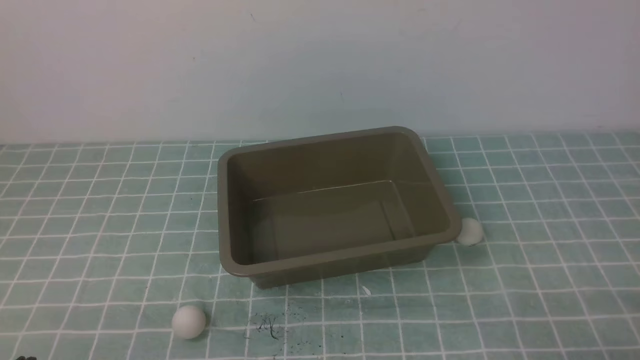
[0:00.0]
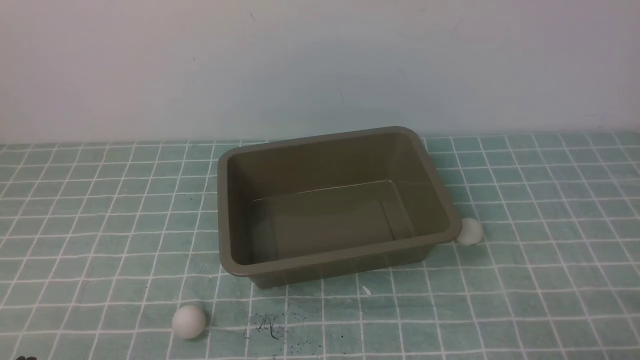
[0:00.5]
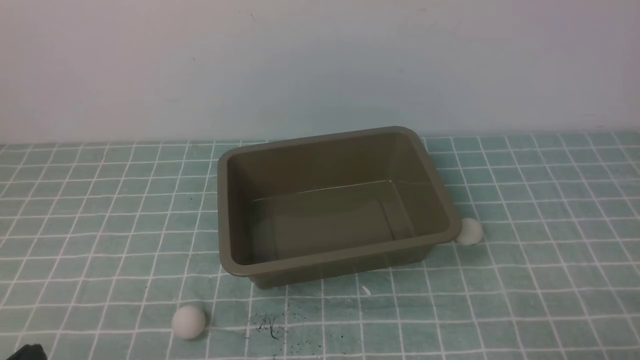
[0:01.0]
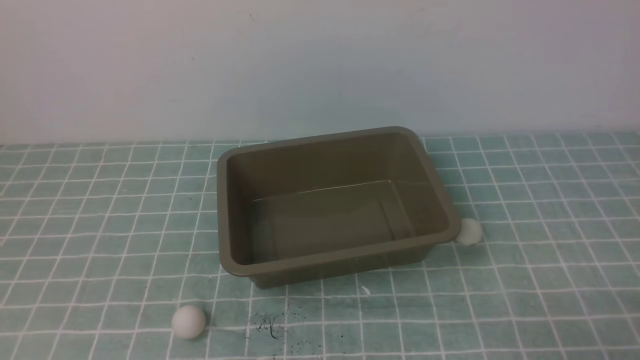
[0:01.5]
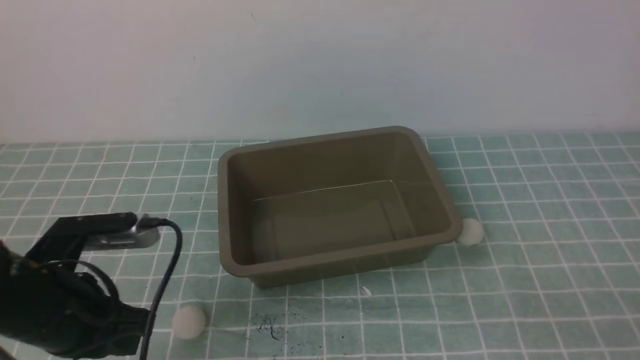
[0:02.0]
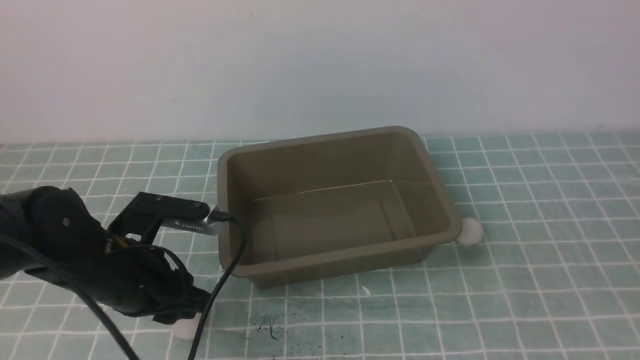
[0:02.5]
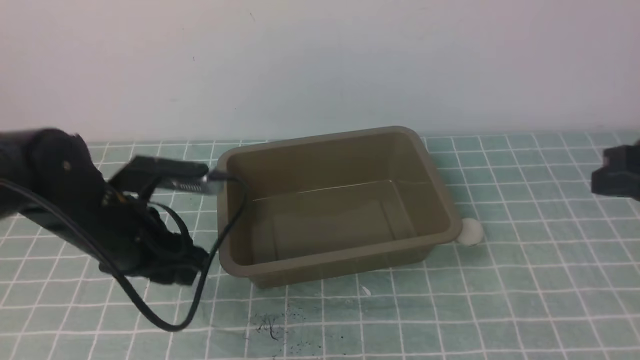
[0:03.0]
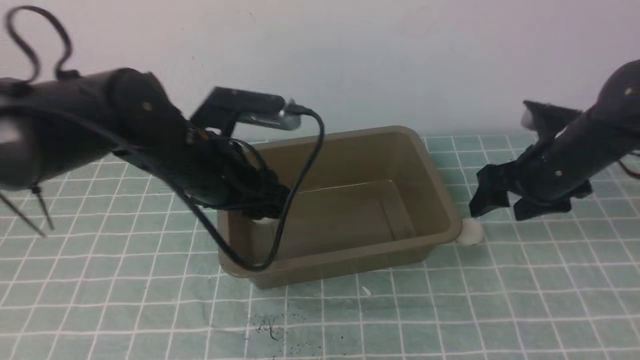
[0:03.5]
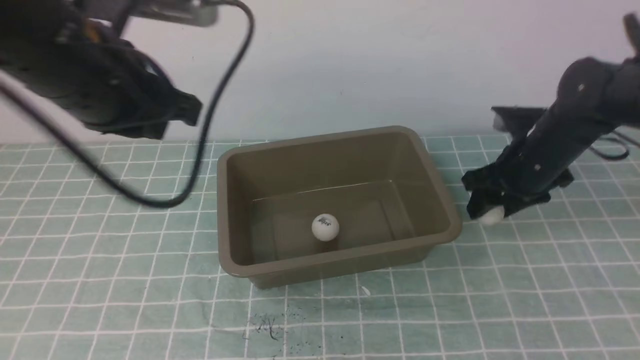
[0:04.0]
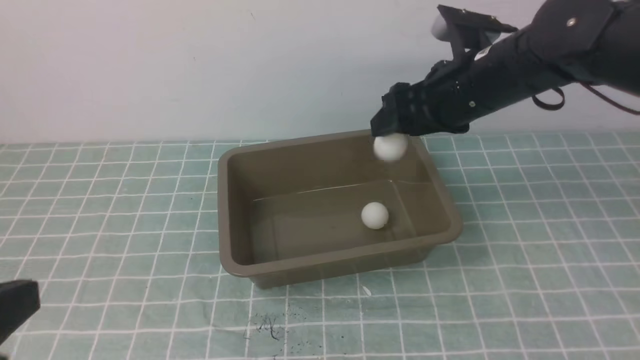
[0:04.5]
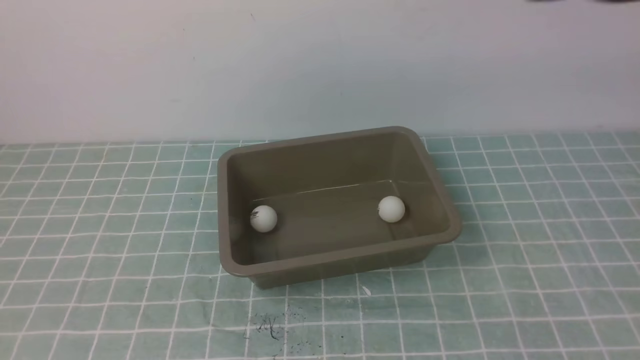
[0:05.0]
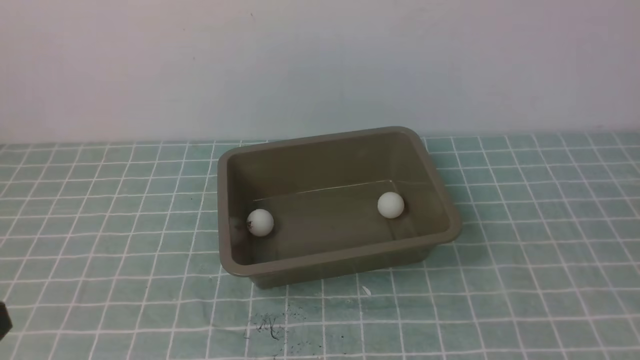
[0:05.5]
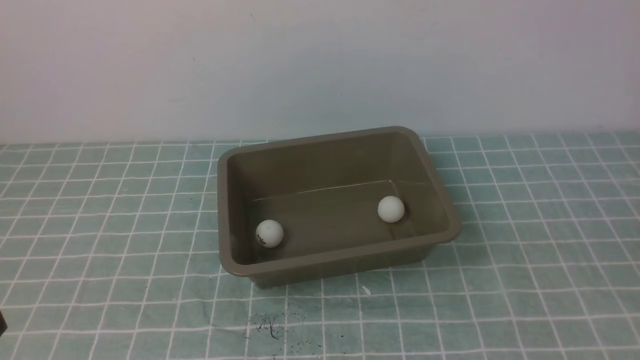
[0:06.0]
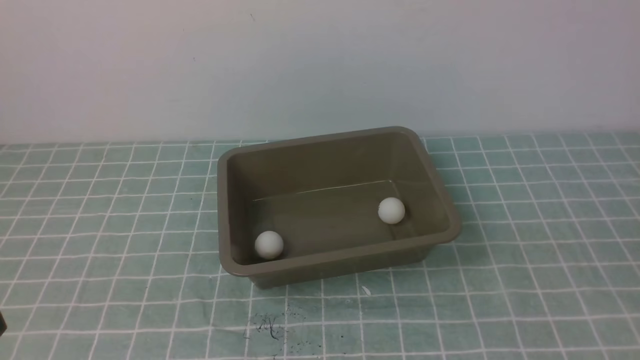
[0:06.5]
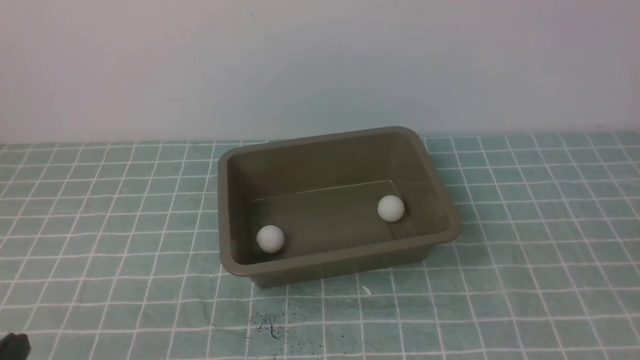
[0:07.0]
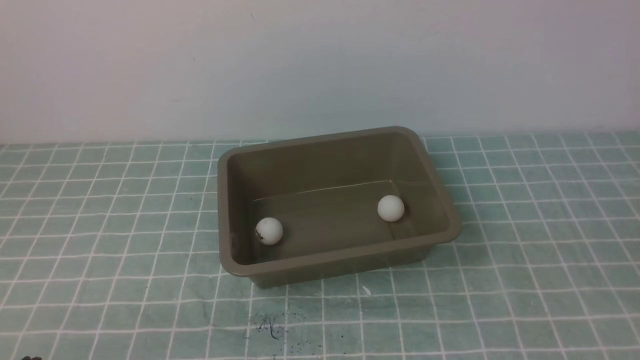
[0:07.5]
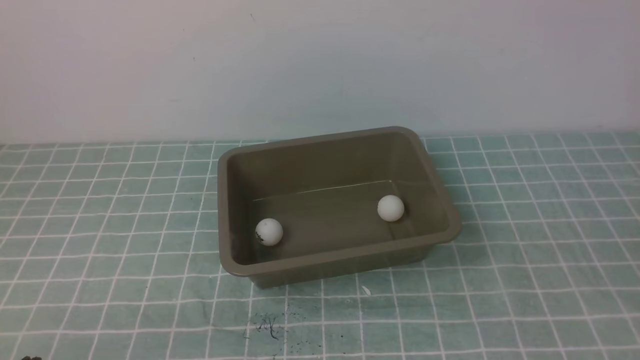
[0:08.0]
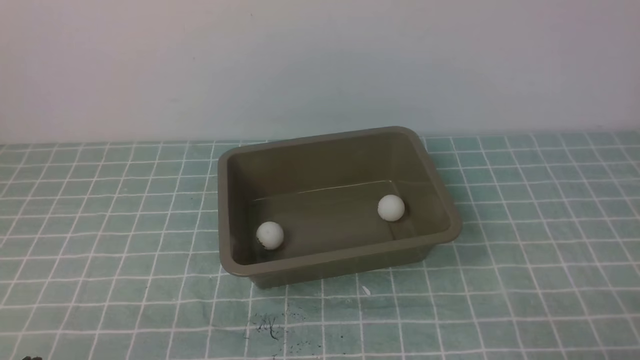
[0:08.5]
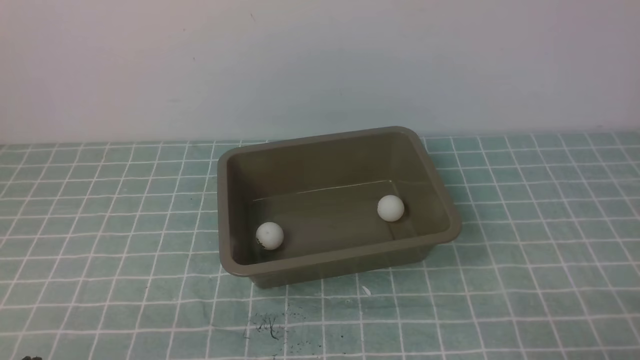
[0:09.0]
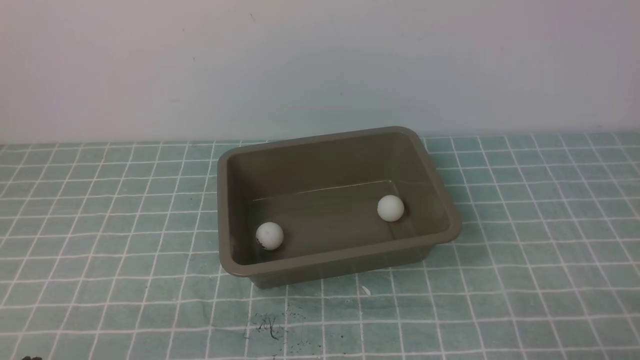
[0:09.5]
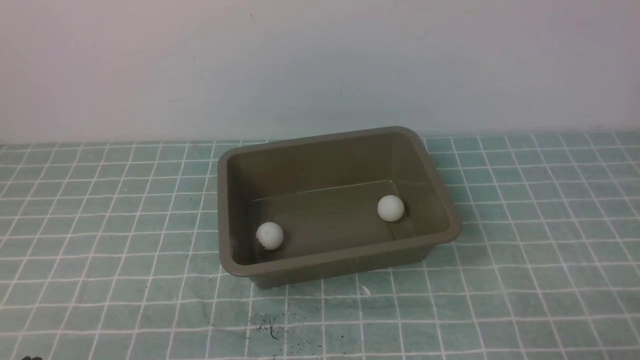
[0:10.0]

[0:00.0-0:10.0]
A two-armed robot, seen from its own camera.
Step, 0:00.0 to 0:03.0: use the left arm to clamp the table tennis ball closest to it.
0:00.0 to 0:02.0: The left gripper is displaced forward by approximately 15 cm.
0:02.0 to 0:04.0: The left gripper is displaced upward and forward by some 15 cm, and opens and closes again; the right gripper travels forward by roughly 35 cm, and opens up.
0:04.0 to 0:06.0: The left gripper heads backward, covering some 25 cm, while the right gripper goes approximately 40 cm backward, and closes up.

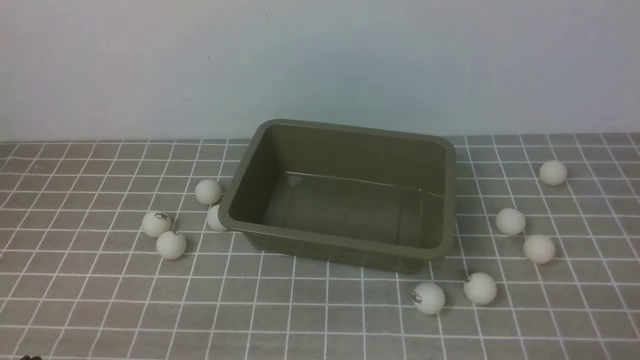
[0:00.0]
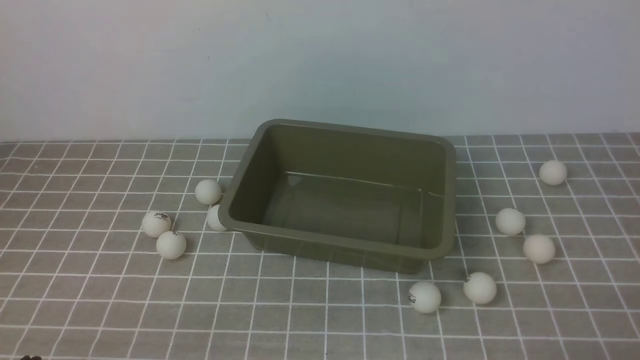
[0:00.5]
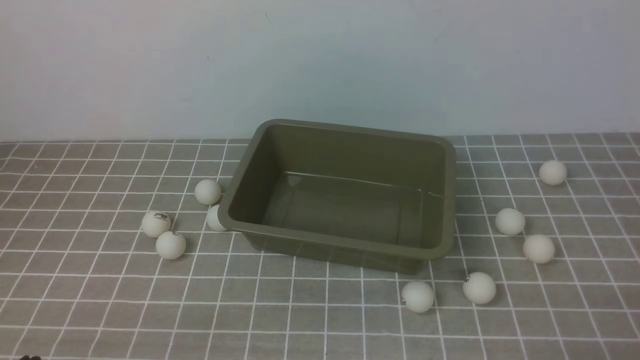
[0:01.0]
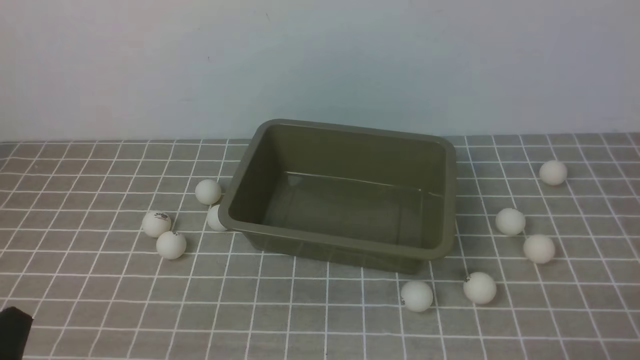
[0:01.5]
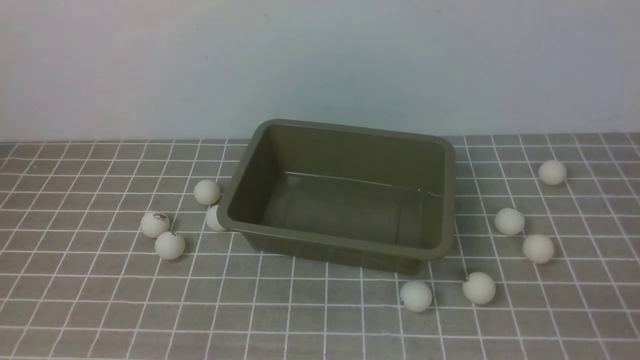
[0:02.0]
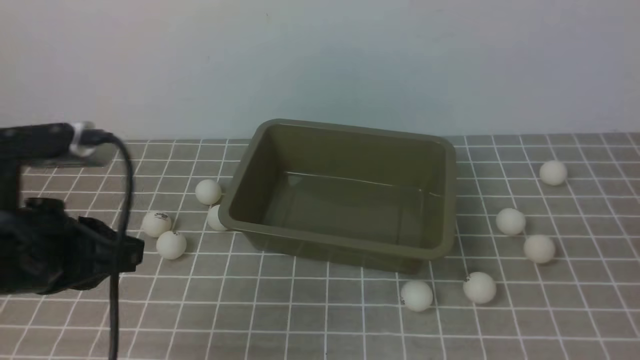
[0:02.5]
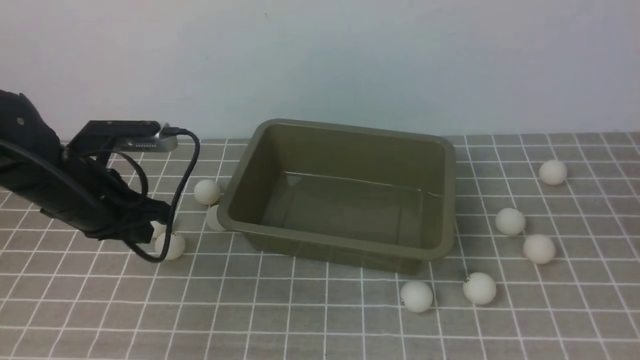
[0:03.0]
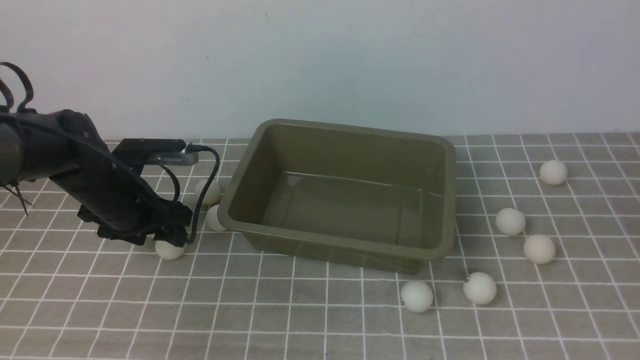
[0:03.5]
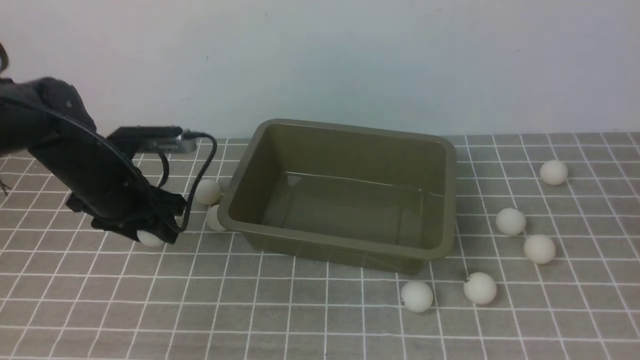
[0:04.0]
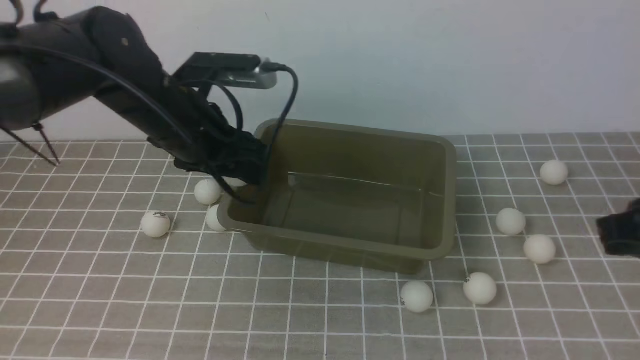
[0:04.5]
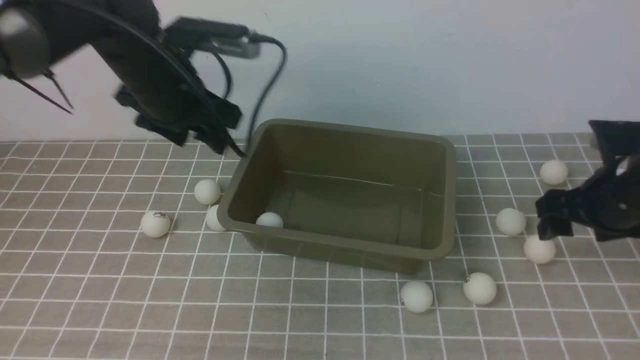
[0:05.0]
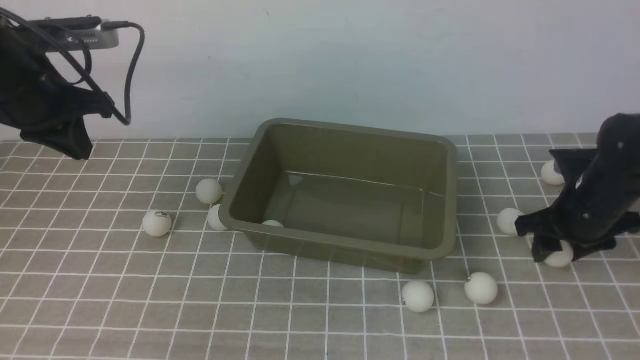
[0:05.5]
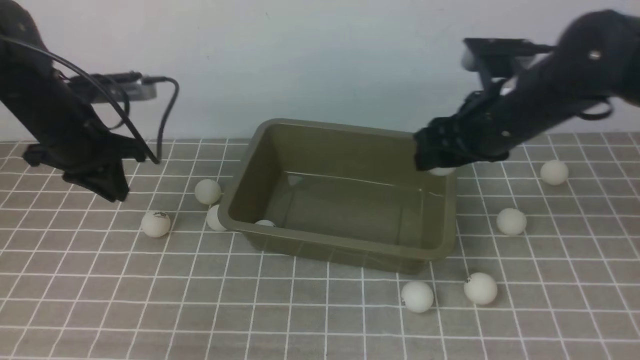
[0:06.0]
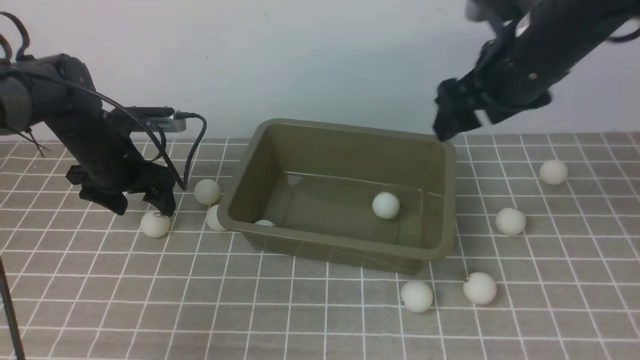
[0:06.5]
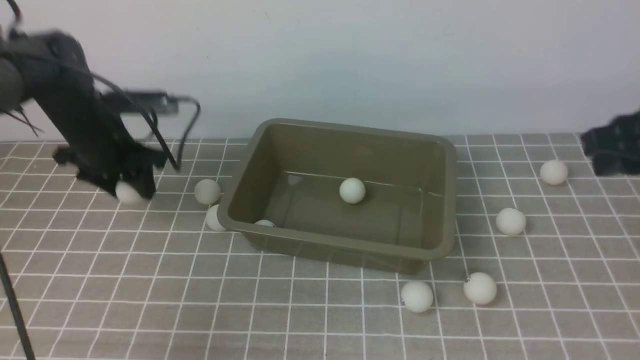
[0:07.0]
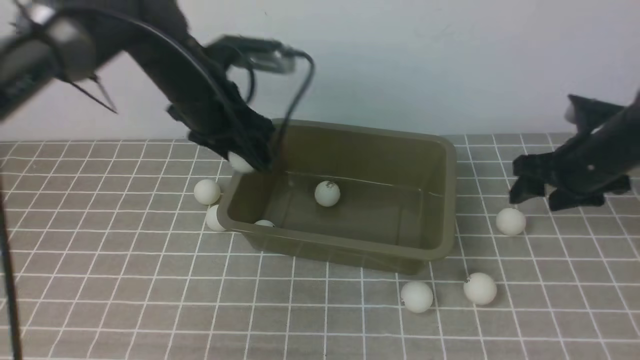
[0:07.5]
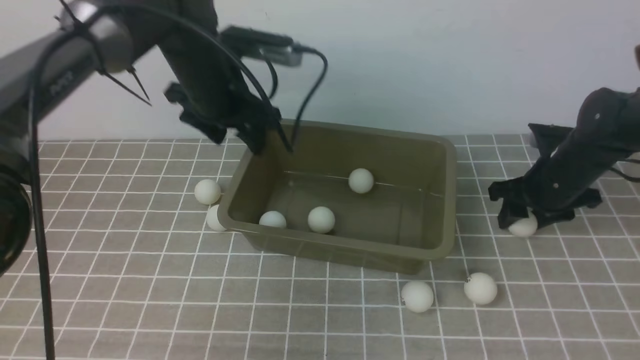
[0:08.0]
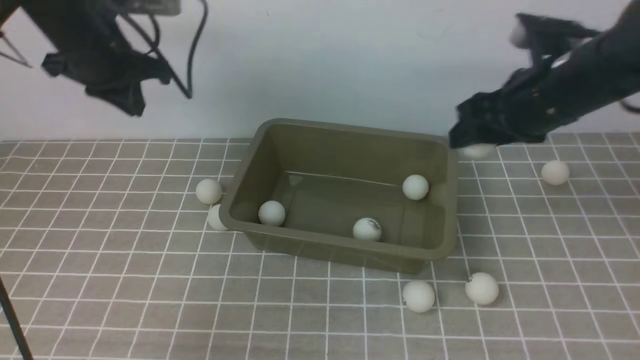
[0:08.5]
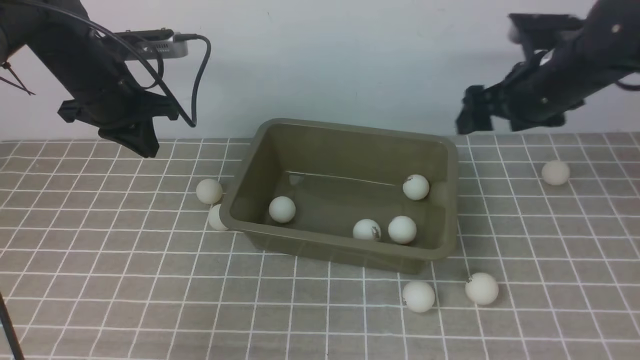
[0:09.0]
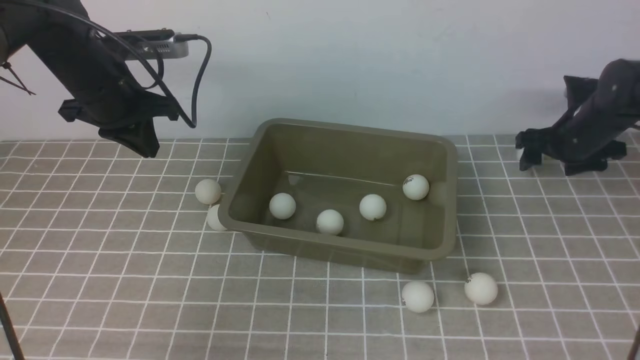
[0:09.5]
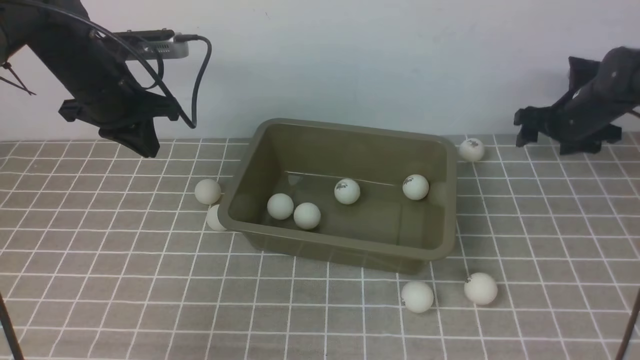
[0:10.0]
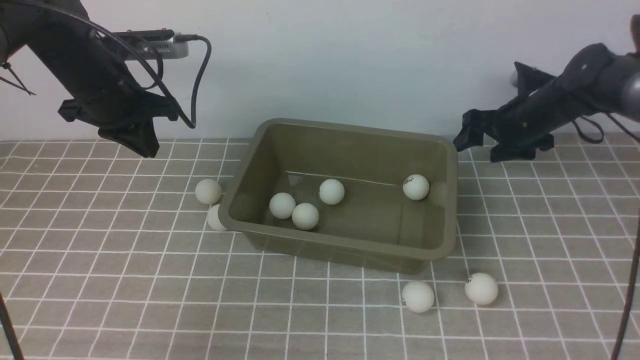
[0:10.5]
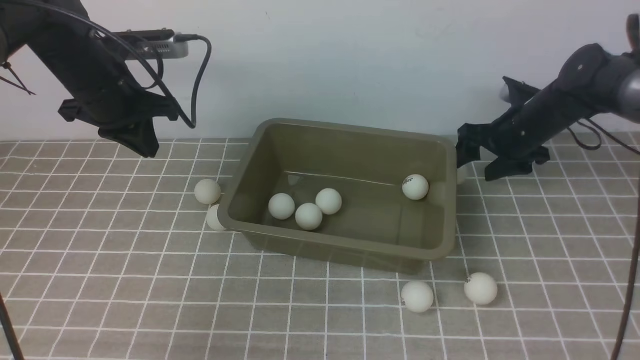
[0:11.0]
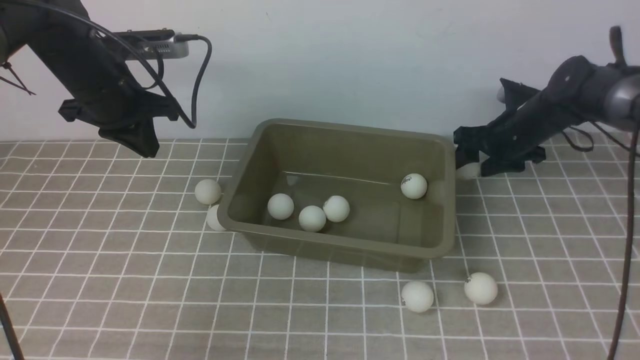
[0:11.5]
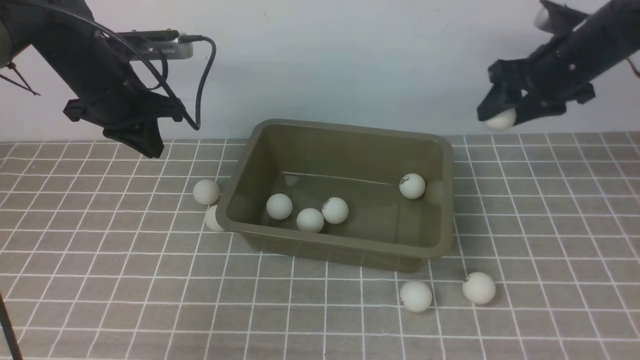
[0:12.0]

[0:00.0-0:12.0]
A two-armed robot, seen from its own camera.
Step, 0:00.0 to 0:04.0: use the left arm to clamp the table tennis ball closest to it.
Step, 0:05.0 to 0:05.5: use the right arm to clamp the table tennis ball closest to it.
Step, 0:09.0 to 0:11.5: use the right arm to clamp the table tennis ball closest to it.
0:02.0 to 0:04.0: The right gripper moves upward, about 15 cm. The left gripper moves forward, approximately 30 cm, and opens.
0:04.0 to 0:06.0: The right gripper shifts approximately 25 cm forward and to the left, and opens, while the left gripper travels to the right and back again, about 10 cm each way, and closes its fingers.
0:06.0 to 0:08.0: The left gripper moves to the right, approximately 15 cm, and opens its fingers, while the right gripper travels downward and to the right by about 15 cm.
0:08.0 to 0:10.0: The right gripper shifts about 10 cm forward. Meanwhile the left gripper shifts approximately 10 cm to the left, and closes its fingers.
0:10.0 to 0:12.0: The right gripper is displaced to the left and upward by some 10 cm.
